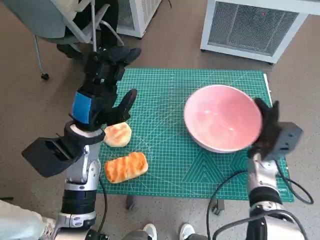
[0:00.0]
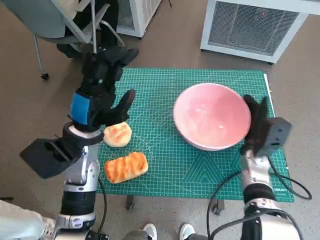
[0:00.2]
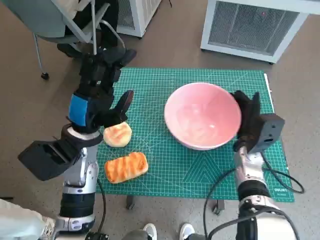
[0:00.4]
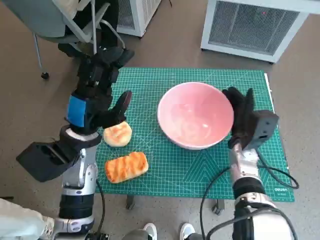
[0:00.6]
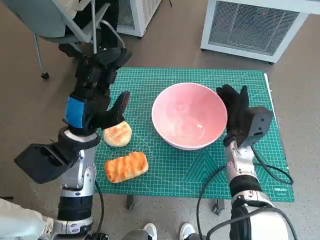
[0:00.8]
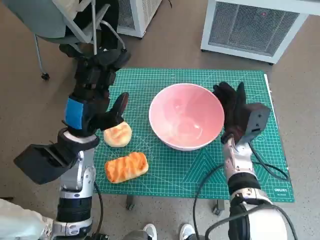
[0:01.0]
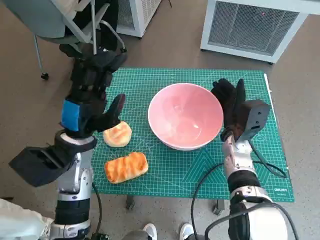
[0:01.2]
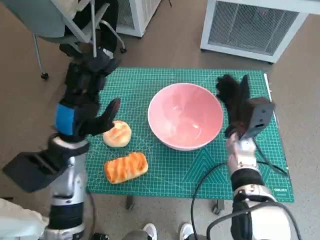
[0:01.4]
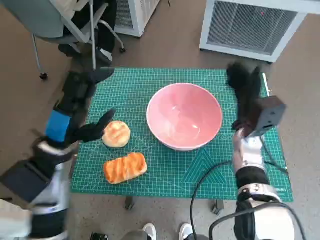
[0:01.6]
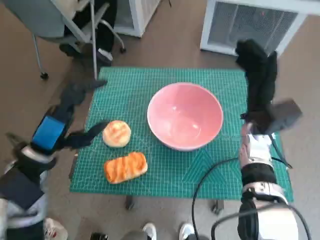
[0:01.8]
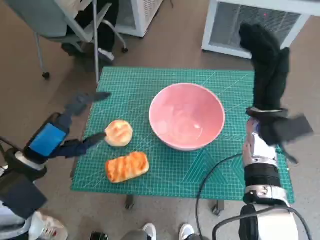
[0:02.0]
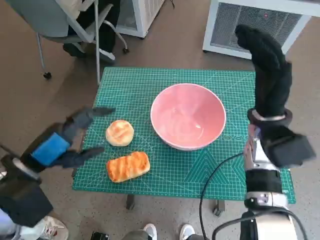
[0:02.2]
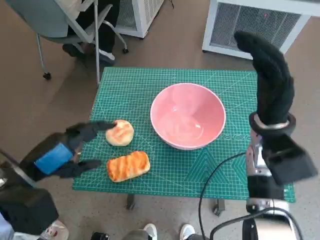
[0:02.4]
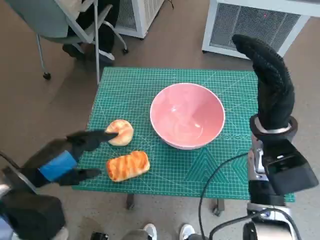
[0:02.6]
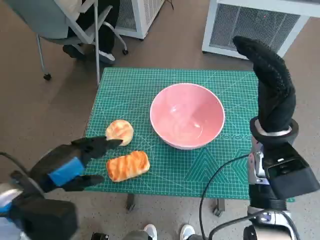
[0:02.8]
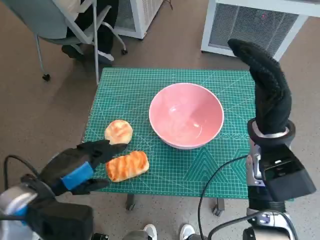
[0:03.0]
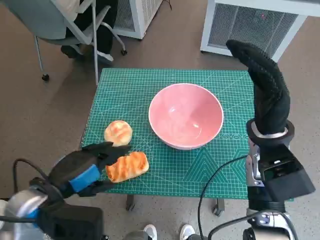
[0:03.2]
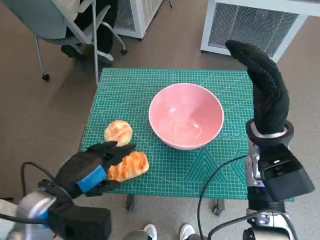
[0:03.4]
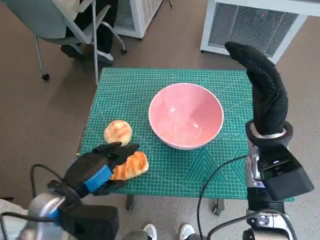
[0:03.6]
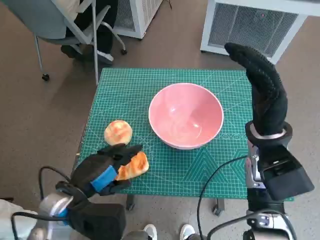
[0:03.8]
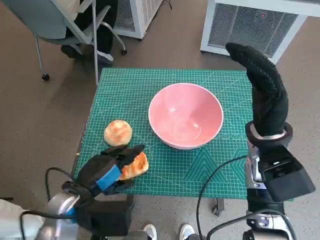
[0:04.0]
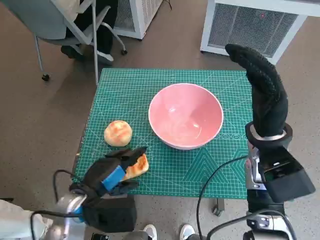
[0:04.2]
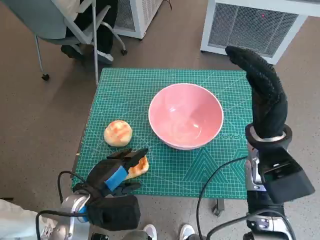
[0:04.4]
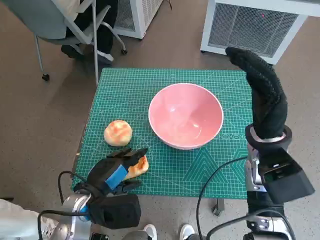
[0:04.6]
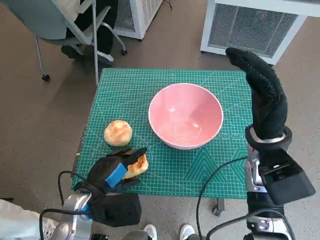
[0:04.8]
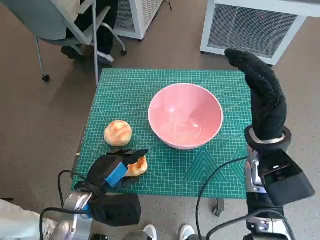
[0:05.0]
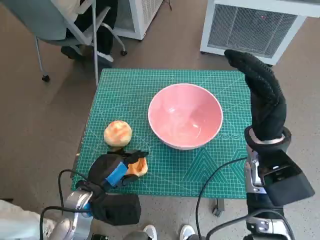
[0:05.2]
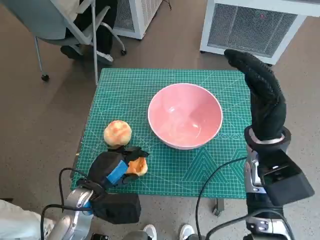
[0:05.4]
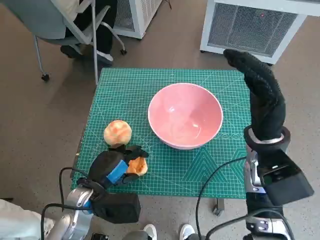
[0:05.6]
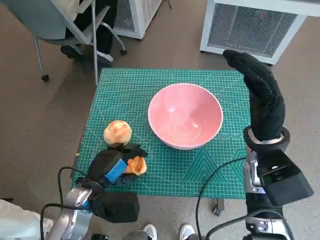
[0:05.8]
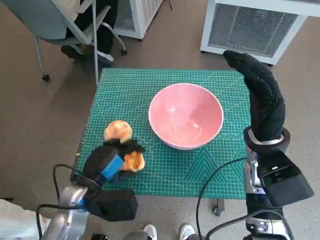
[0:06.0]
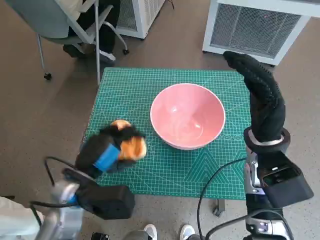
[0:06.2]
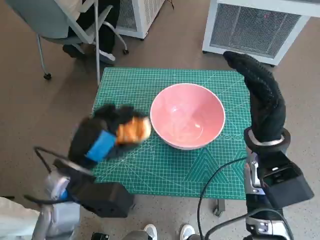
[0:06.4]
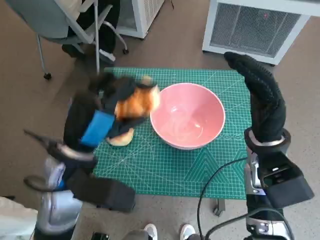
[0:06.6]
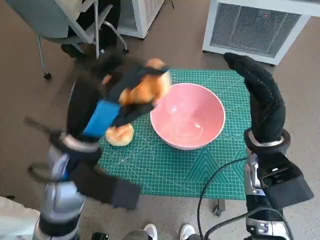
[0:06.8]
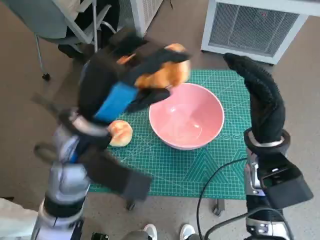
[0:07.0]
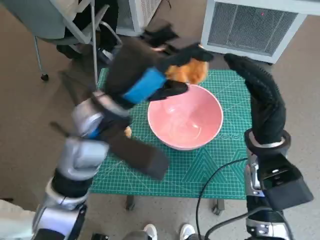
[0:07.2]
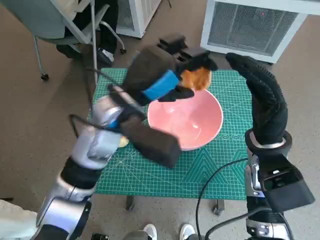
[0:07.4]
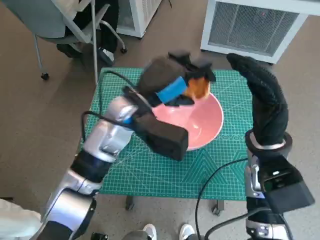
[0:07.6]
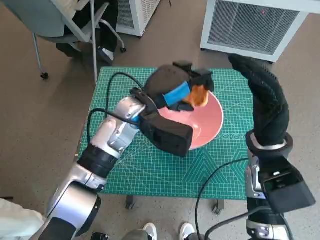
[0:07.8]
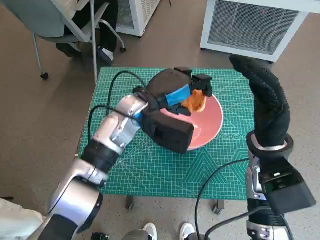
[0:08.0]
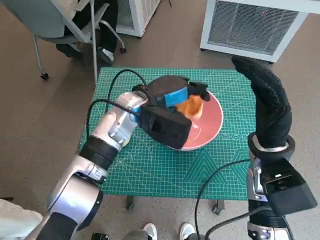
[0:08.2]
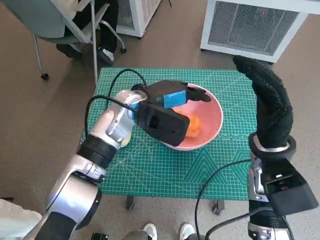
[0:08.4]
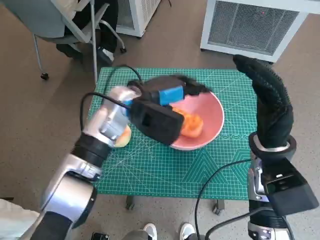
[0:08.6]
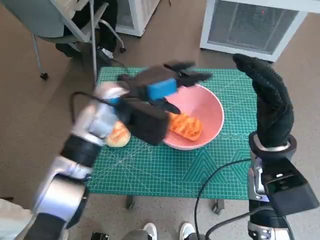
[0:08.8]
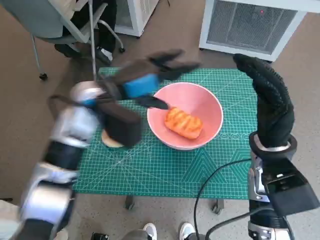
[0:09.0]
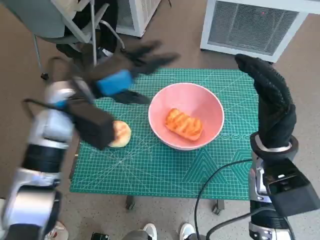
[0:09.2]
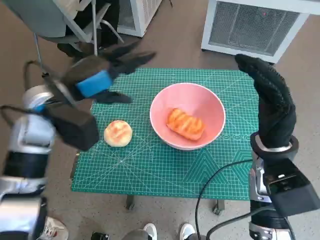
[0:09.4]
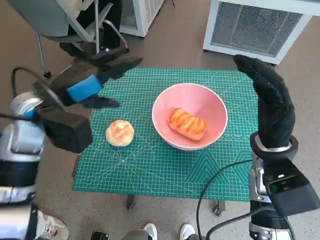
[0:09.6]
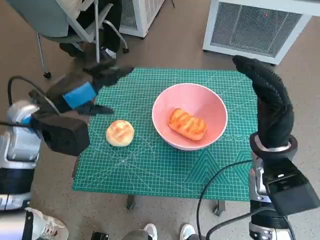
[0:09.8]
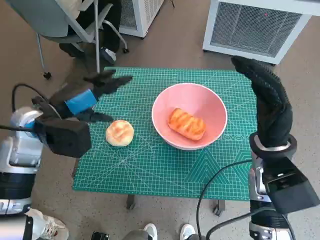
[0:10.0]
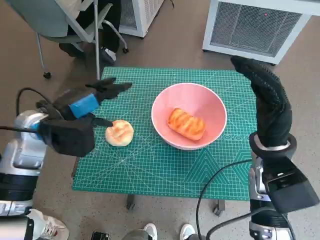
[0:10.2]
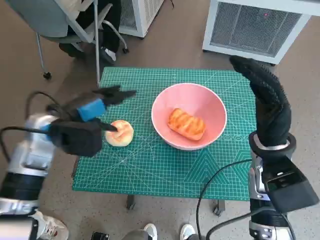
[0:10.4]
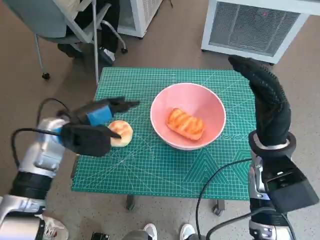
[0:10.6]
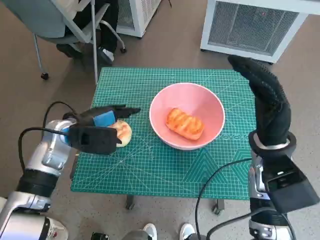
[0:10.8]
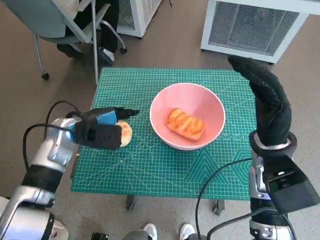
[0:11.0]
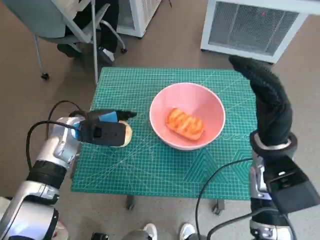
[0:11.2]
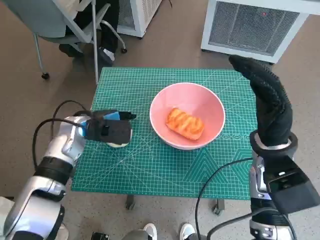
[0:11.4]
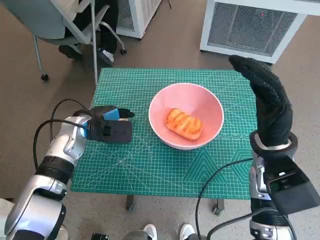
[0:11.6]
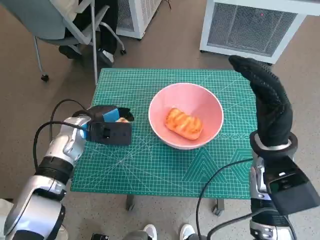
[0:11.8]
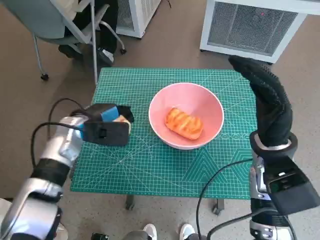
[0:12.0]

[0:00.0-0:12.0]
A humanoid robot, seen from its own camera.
Task of the whole recording: Push the bowl to the center of the table and put the bread into the bowl.
Step, 0:01.8 to 0:05.2: Grasp the long bread with left hand.
Step, 0:05.4 to 0:08.6: Place the long bread in pink bowl with left hand.
Step, 0:08.8 to 0:11.6: Grasp the round bread with left hand.
0:00.0 to 0:01.6: The left hand ends up about 5 cm from where it was. The right hand is displaced upward and to the left by about 10 cm.
0:01.6 to 0:03.0: The left hand travels backward by roughly 10 cm, while the right hand goes some 10 cm upward and backward.
0:03.0 to 0:04.4: The left hand goes about 10 cm downward and to the right.
0:04.4 to 0:06.0: The hands move only a little.
0:06.0 to 0:07.6: The left hand goes about 20 cm upward, forward and to the right.
0:07.6 to 0:09.0: The left hand shifts by roughly 5 cm.
0:09.0 to 0:10.4: The left hand heads to the left, covering some 10 cm.
0:10.4 to 0:12.0: The left hand moves downward, roughly 5 cm.

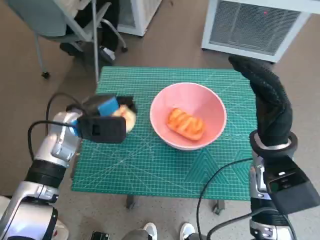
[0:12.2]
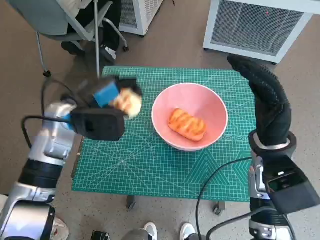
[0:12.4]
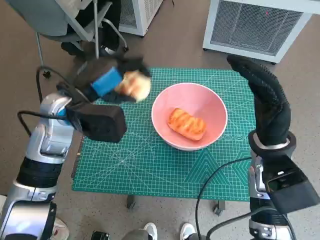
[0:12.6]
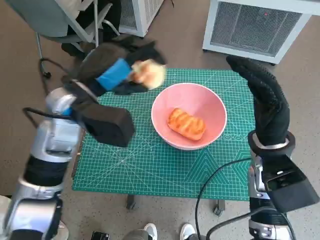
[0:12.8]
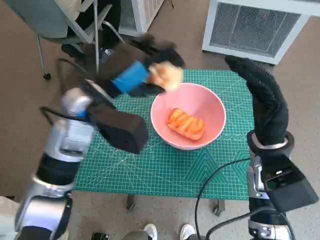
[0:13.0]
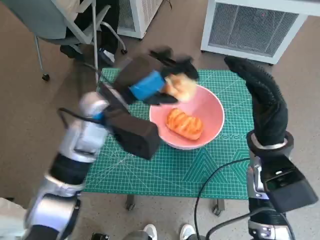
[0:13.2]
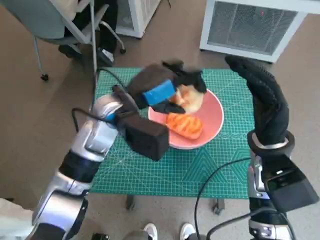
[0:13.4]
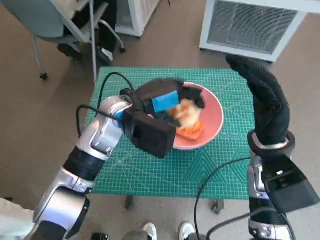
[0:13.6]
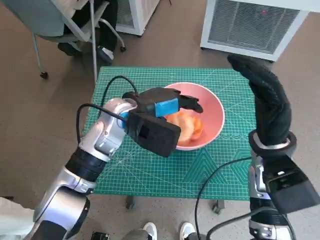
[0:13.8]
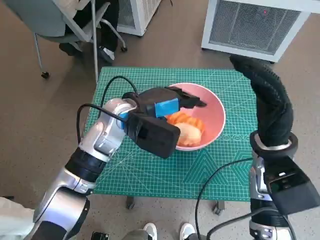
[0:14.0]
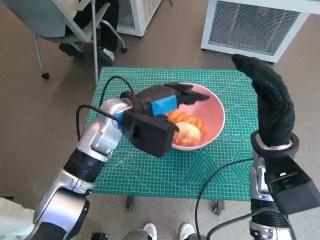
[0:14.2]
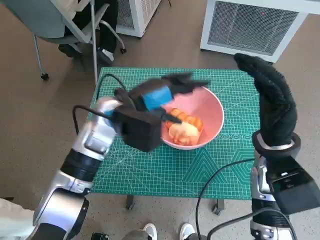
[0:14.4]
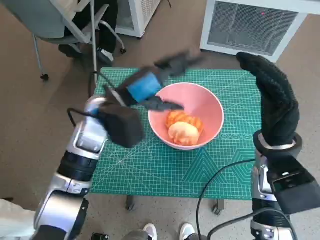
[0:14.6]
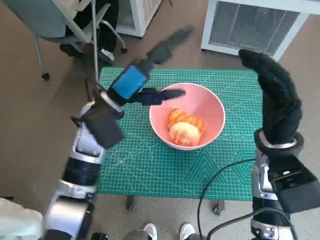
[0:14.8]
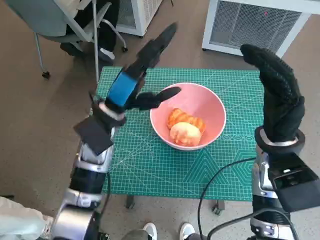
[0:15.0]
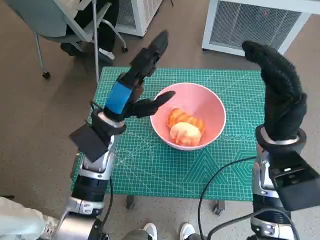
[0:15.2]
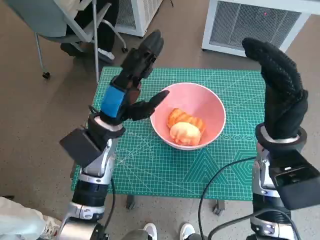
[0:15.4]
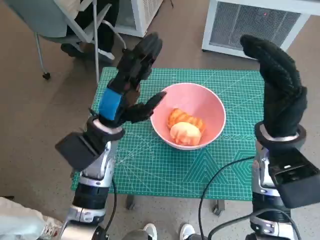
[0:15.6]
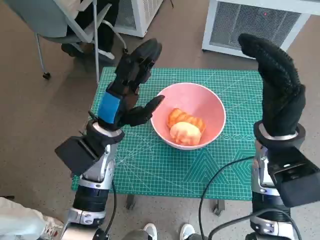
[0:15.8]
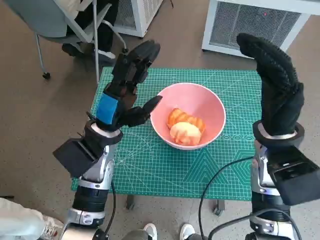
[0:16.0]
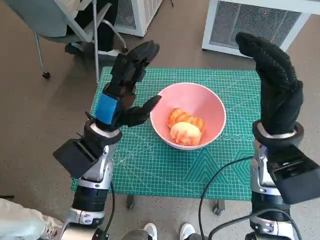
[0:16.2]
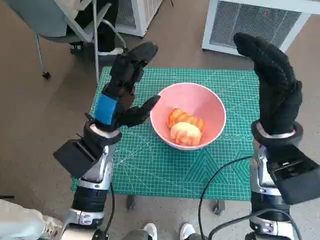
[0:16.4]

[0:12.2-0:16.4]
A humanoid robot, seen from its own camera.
Task of the whole recording: Push the bowl to the center of the table and put the bread into the bowl.
Step, 0:12.2 to 0:14.4: Place the round bread in pink bowl with left hand.
0:12.2 to 0:13.6: The left hand goes roughly 15 cm to the right and upward.
0:15.0 to 0:16.4: The hands make only small movements.

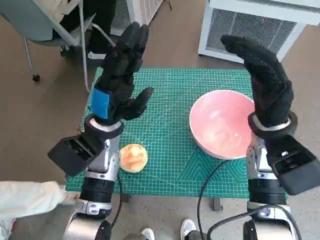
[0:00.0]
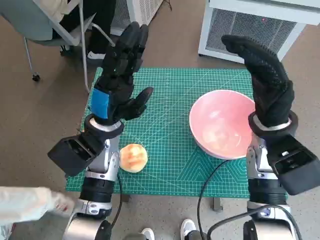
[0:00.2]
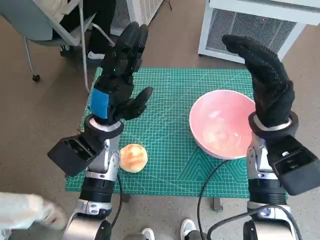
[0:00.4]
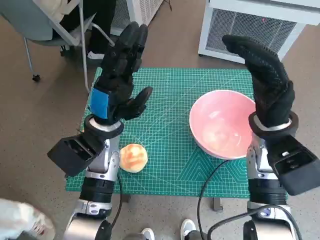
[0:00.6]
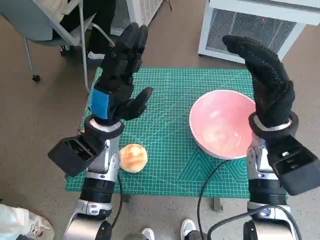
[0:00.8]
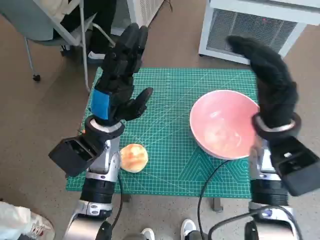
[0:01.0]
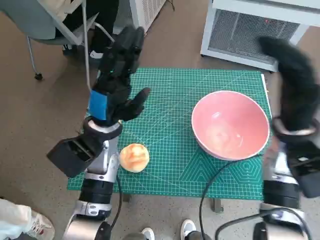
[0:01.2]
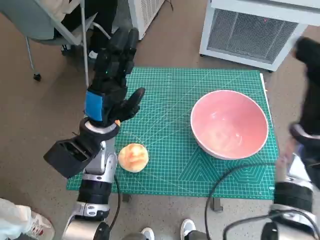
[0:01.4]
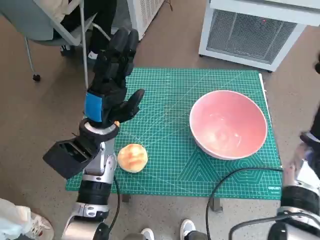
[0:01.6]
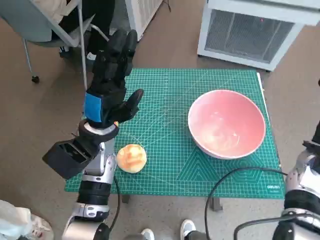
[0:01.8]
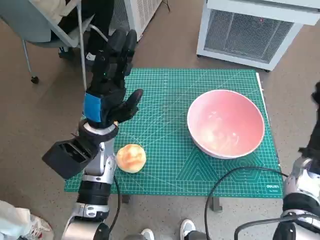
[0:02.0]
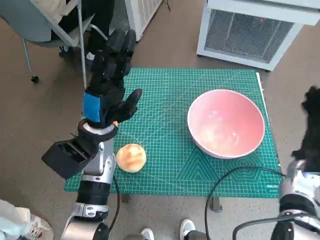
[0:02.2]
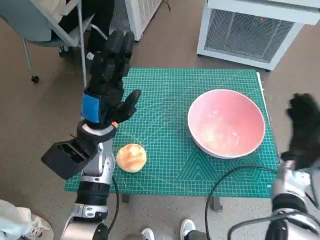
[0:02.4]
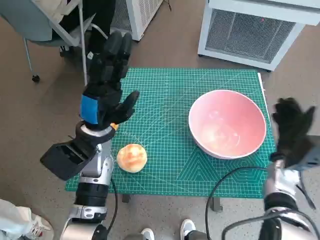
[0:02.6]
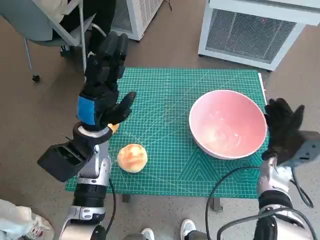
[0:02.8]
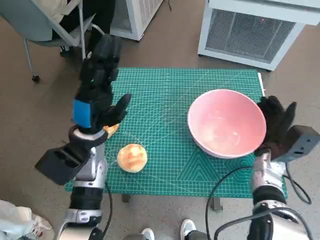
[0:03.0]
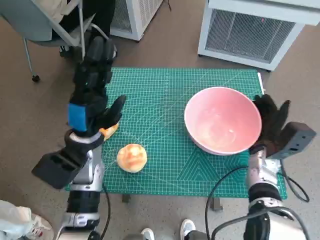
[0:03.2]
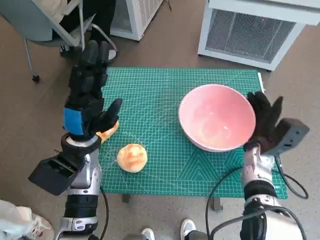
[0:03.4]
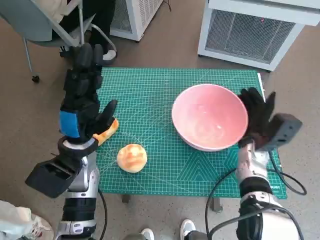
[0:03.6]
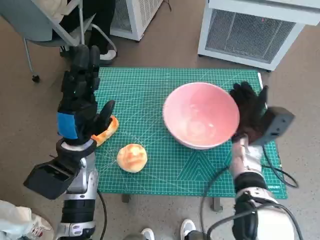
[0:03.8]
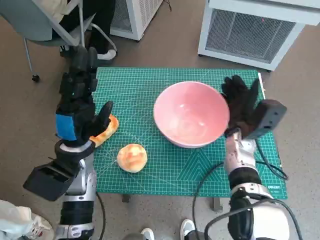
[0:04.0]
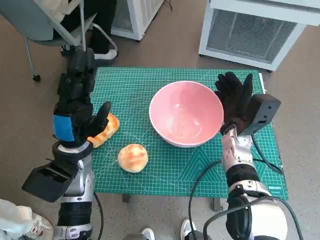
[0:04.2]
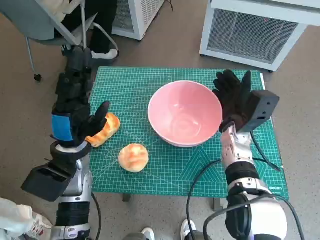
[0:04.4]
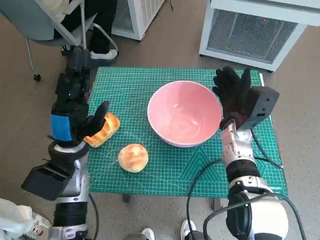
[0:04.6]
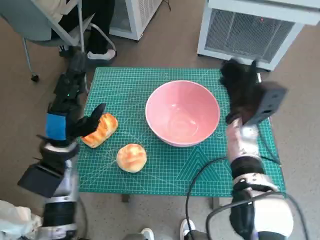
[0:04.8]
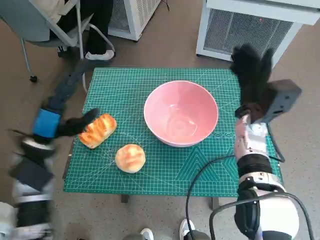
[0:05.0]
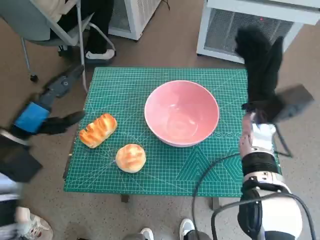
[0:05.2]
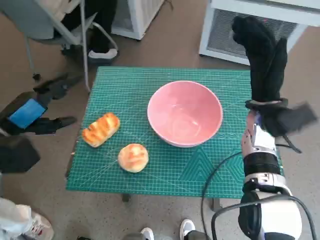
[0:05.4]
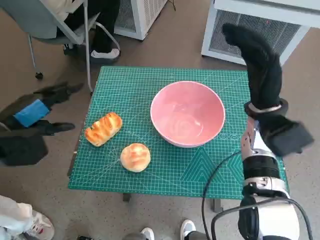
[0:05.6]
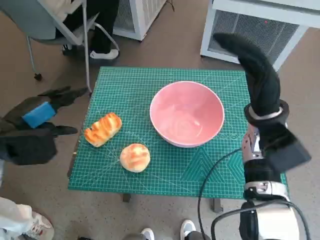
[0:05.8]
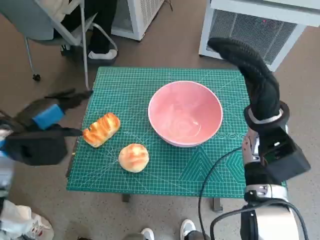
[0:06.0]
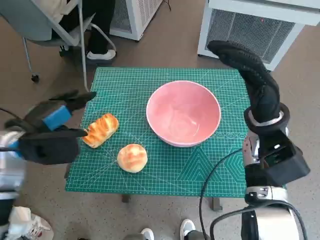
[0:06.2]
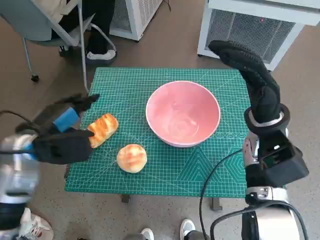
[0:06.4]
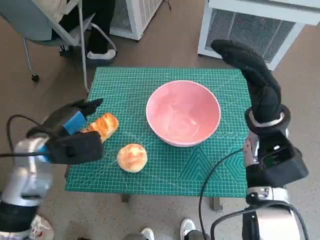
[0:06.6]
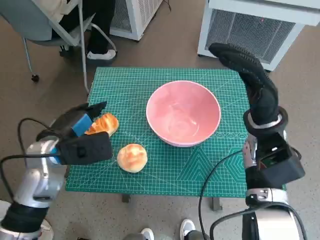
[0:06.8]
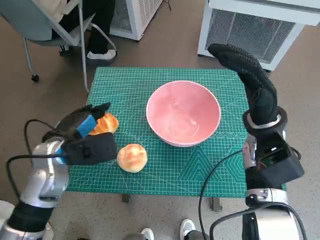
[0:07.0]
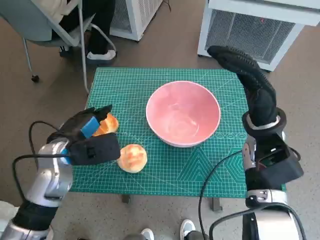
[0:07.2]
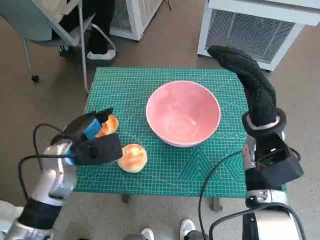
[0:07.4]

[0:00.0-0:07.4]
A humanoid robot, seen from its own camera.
Task of the whole recording: Push the bowl to the center of the table and put the bread into the bowl.
Step, 0:00.0 to 0:04.8: Move the pink bowl to the center of table with right hand.
0:01.4 to 0:03.0: The right hand goes some 10 cm downward.
0:03.0 to 0:04.4: The right hand travels to the left by about 10 cm.
0:04.4 to 0:06.0: The left hand travels to the left and upward by roughly 10 cm, while the right hand goes about 10 cm upward.
0:06.0 to 0:07.4: The left hand moves to the right and downward, roughly 10 cm.
